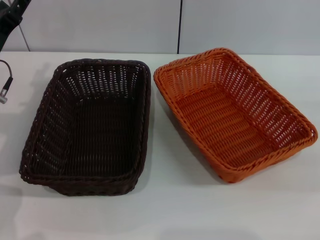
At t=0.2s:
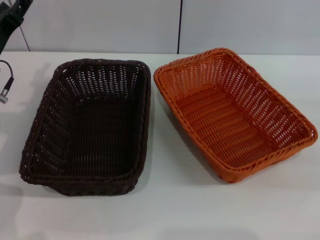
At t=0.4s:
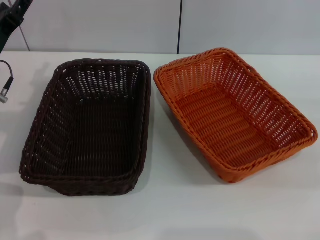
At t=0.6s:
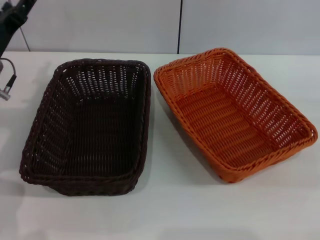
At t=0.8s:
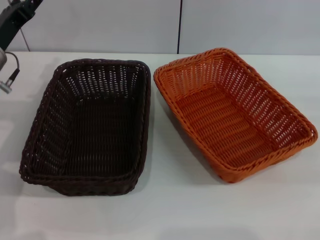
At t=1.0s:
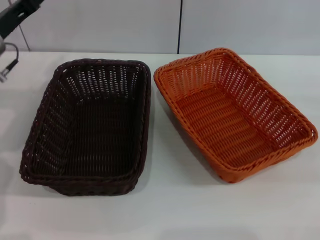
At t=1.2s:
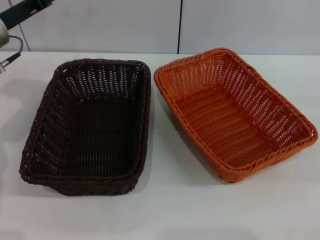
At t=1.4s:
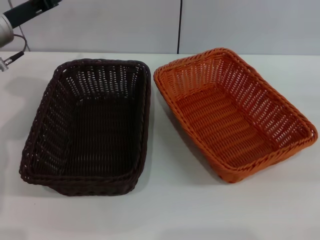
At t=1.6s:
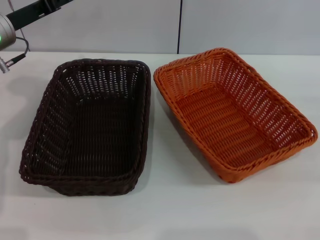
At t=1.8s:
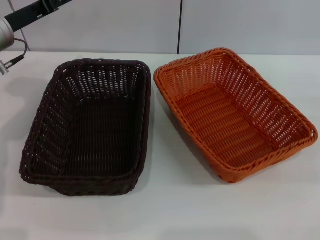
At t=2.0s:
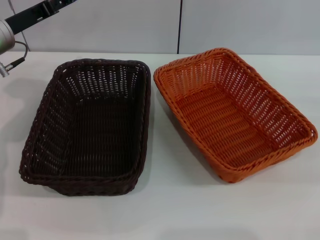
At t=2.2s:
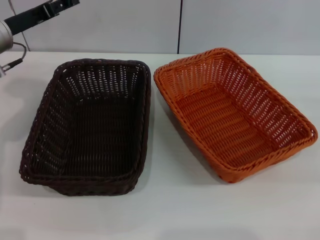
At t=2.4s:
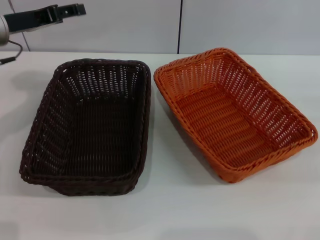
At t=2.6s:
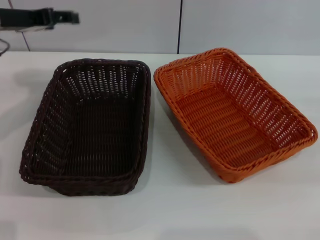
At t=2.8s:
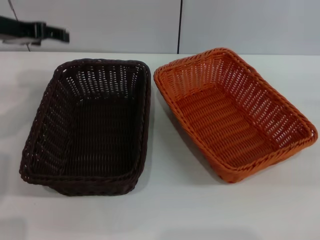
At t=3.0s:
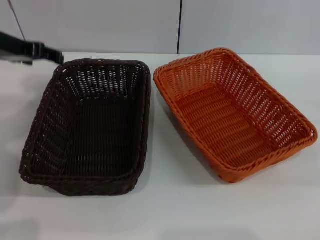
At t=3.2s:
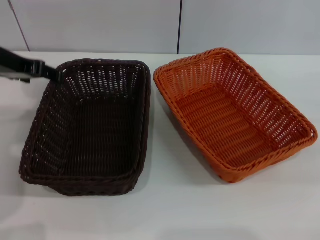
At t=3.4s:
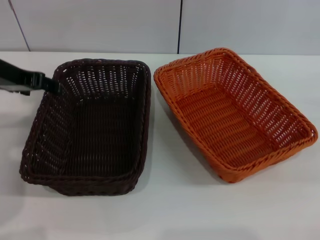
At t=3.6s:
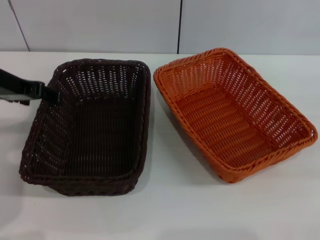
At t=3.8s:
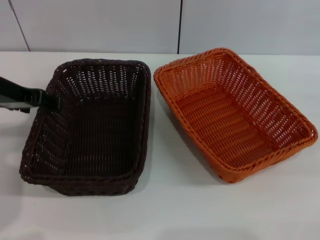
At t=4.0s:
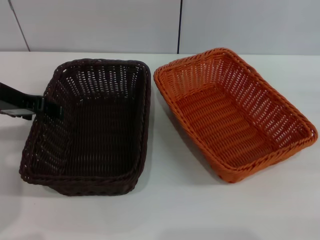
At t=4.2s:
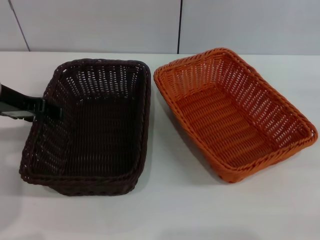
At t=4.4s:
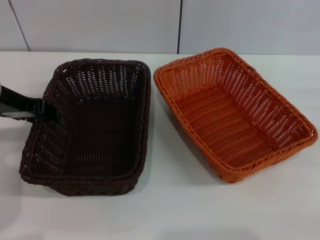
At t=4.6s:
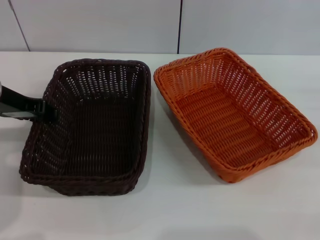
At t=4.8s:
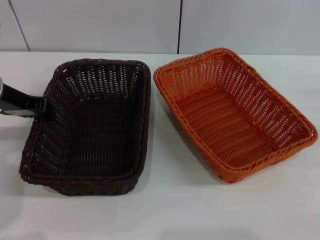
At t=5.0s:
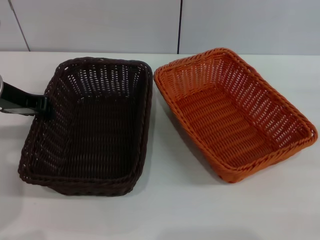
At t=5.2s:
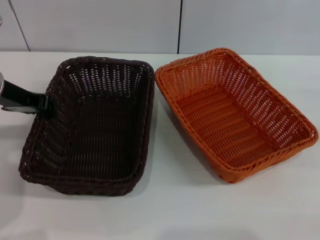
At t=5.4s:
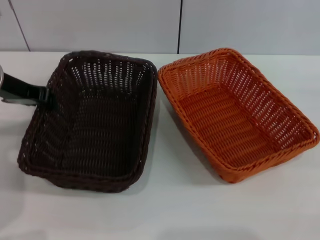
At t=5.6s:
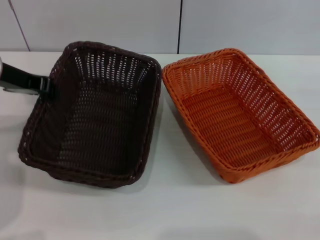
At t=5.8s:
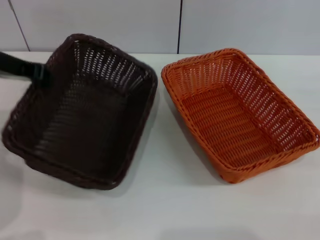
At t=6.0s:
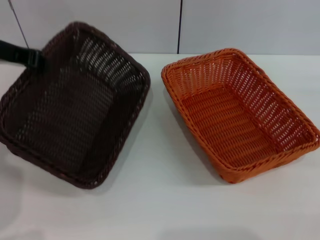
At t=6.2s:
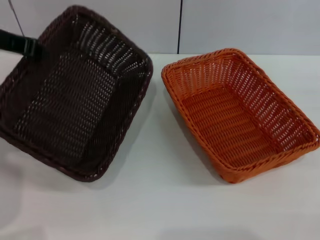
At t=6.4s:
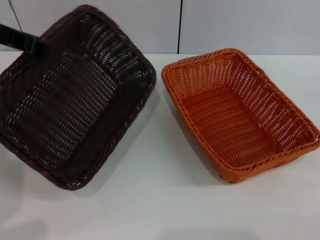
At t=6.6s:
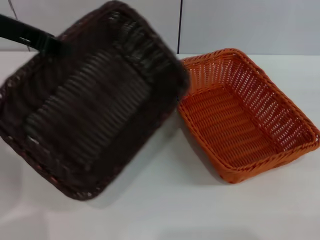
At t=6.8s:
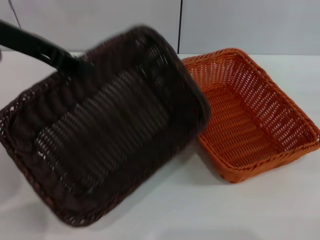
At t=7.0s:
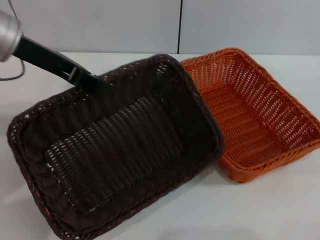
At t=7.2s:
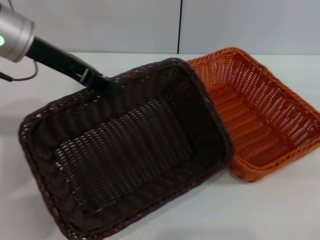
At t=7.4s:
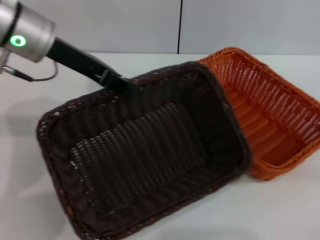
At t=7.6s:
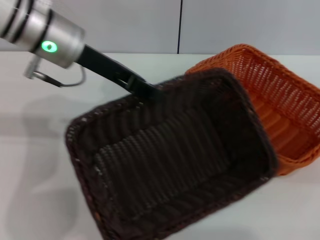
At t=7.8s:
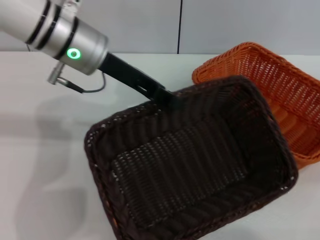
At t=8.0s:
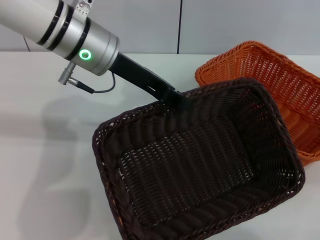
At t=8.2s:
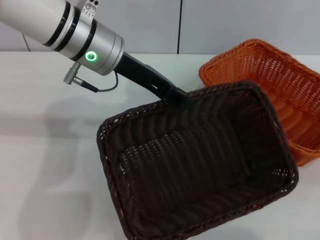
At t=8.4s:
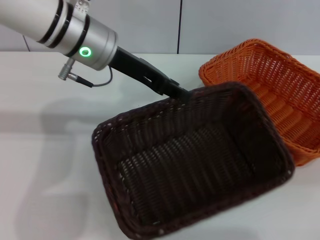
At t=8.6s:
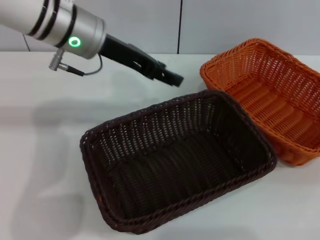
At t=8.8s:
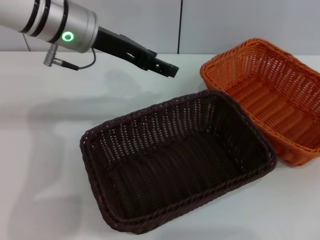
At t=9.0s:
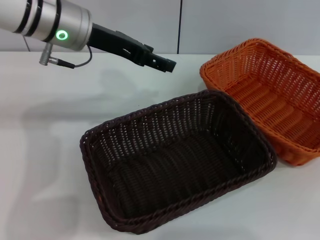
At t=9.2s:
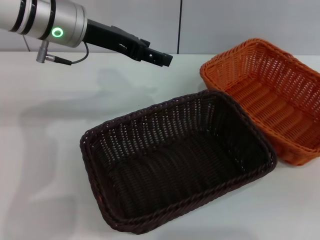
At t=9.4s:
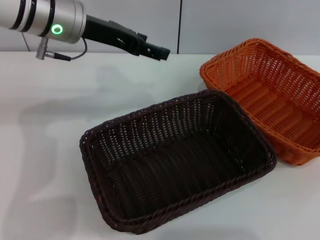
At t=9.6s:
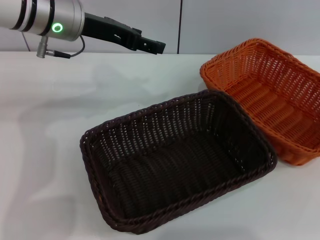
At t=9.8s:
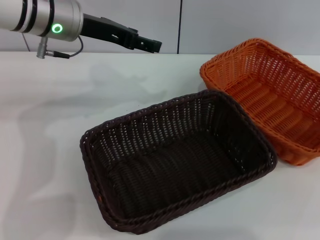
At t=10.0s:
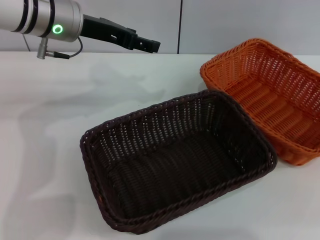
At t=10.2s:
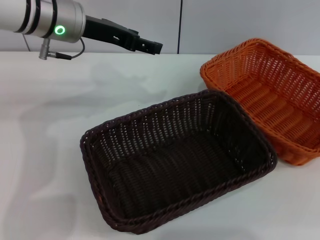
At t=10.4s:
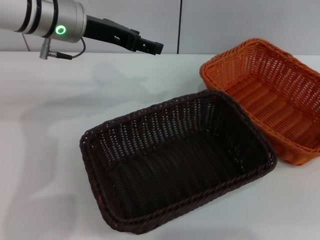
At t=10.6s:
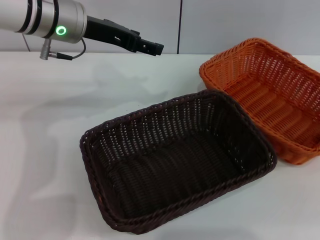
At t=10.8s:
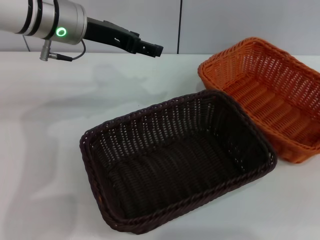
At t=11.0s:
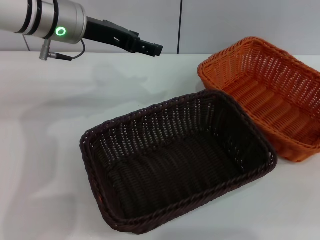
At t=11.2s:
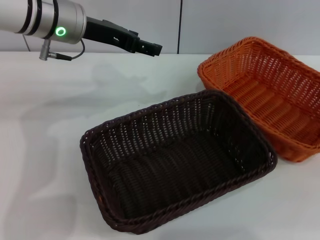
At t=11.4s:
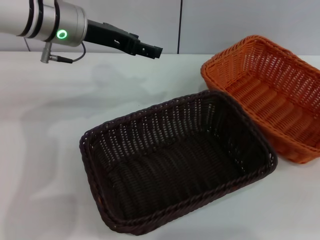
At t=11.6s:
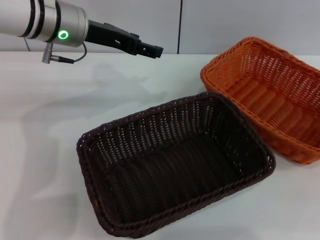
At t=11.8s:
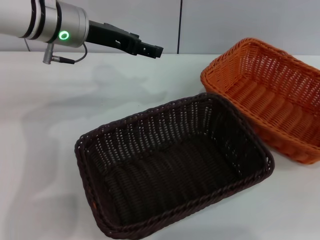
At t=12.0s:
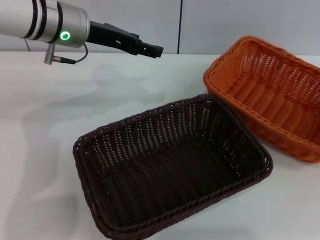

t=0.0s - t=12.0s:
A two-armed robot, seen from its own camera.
Step, t=0.0s - t=6.2s: Pick up the dark basket with the left gripper.
Step, t=6.4s - t=8.4s: Place the dark basket in the center of view with the left gripper.
t=0.0s - t=1.6s: The left gripper is displaced upward and forward by some 10 cm.
t=1.6s - t=3.0s: The left gripper shifts roughly 5 cm upward.
t=3.0s - t=4.4s: The left gripper moves downward, approximately 5 cm.
t=4.4s - t=6.0s: The left gripper goes some 5 cm upward, and closes its fingers.
t=6.0s - t=7.6s: The left gripper travels to the right by approximately 10 cm.
t=7.6s - t=9.0s: The right gripper heads upward, covering approximately 5 cm. The left gripper opens its fingers.
t=9.0s - t=10.4s: The right gripper reaches approximately 10 cm upward, then returns.
t=10.4s - t=12.0s: The right gripper closes up.

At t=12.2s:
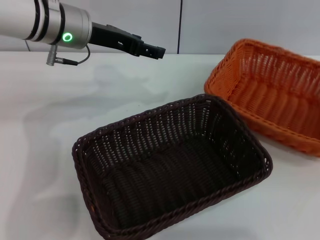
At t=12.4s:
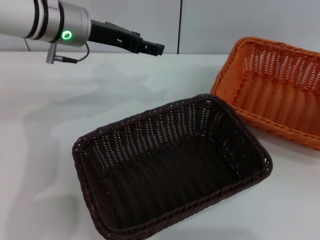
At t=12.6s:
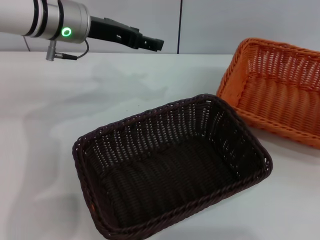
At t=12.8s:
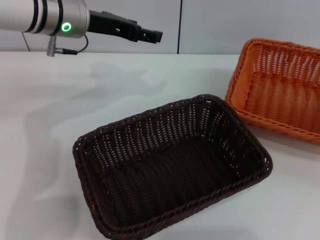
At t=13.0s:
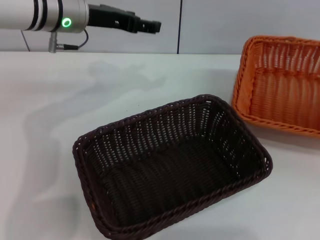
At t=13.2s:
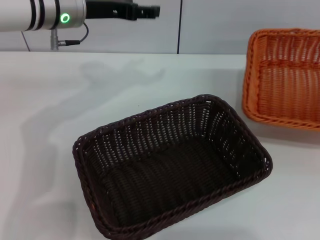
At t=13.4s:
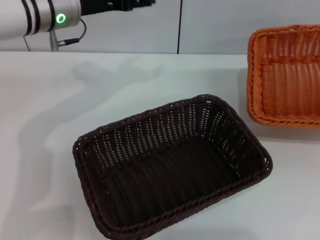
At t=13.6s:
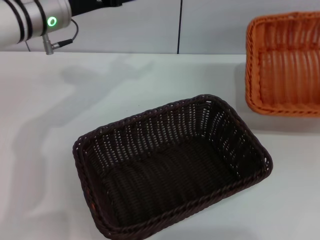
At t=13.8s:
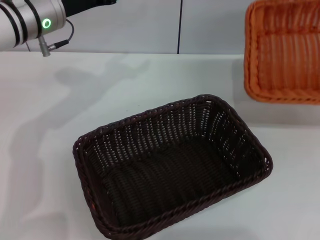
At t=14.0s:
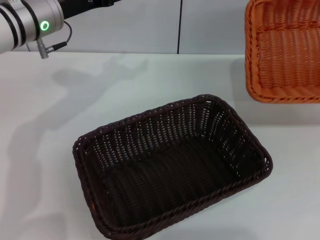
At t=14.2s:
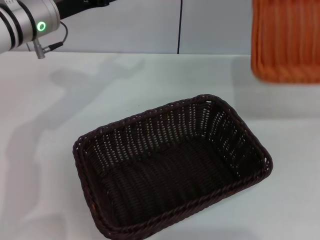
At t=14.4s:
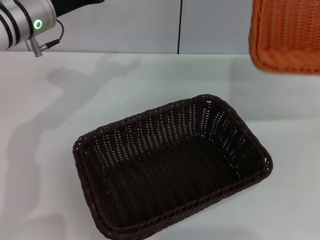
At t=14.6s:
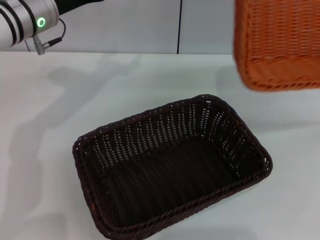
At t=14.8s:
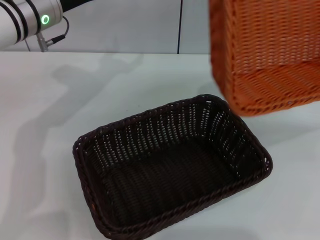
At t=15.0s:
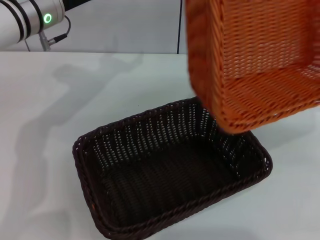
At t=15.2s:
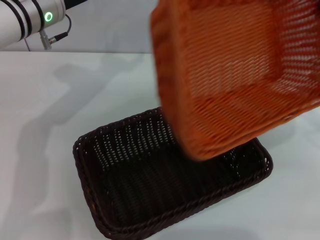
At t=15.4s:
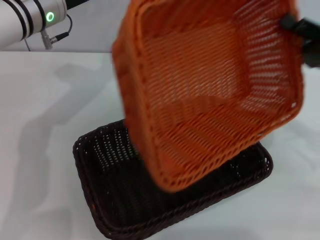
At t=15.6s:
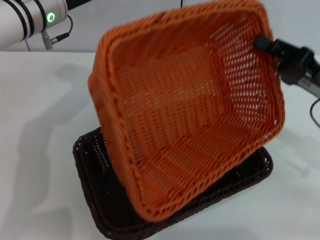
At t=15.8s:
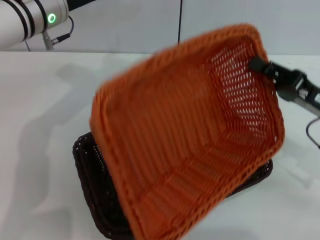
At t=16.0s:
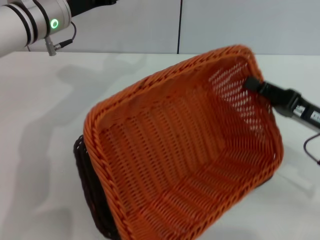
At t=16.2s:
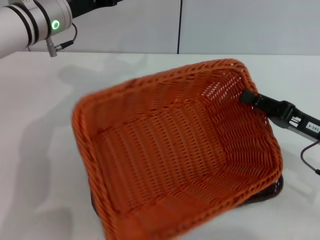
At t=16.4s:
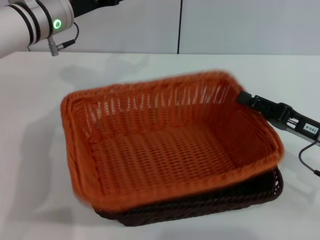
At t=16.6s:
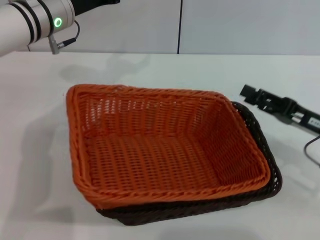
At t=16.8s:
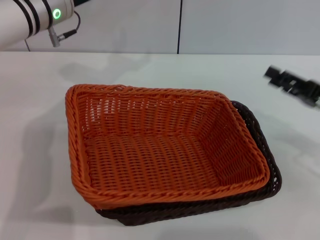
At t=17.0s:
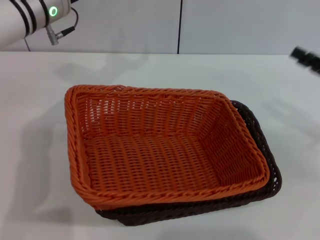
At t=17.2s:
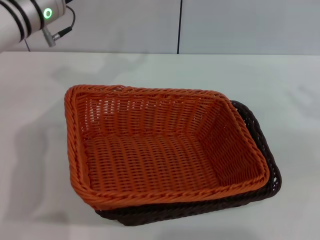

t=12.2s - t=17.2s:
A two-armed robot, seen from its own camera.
Step, t=13.6s - t=16.4s: Place the light basket on the dark basket with the right gripper.
t=13.8s - t=15.6s: The right gripper shifts approximately 20 cm to the left.
t=15.6s - t=17.2s: The right gripper shifts approximately 10 cm to the right, and opens up.
